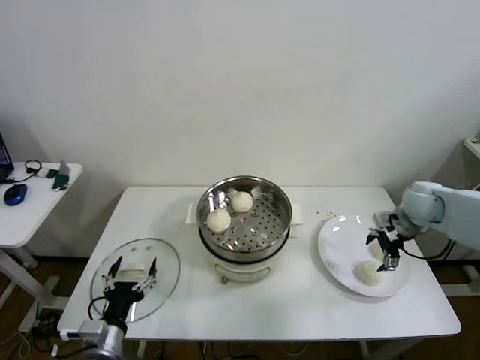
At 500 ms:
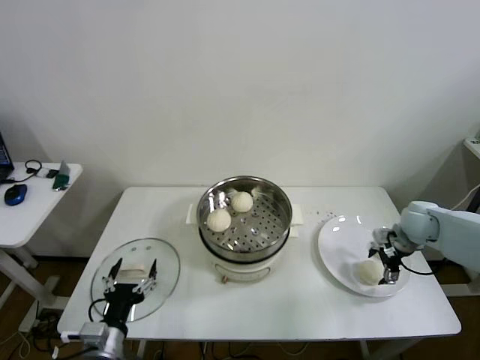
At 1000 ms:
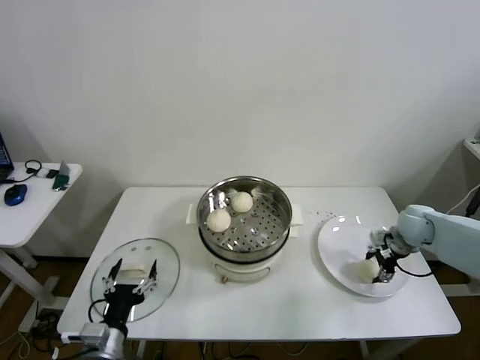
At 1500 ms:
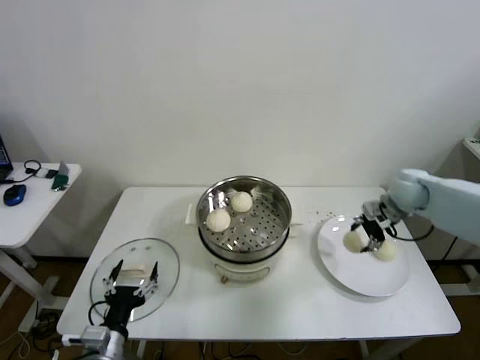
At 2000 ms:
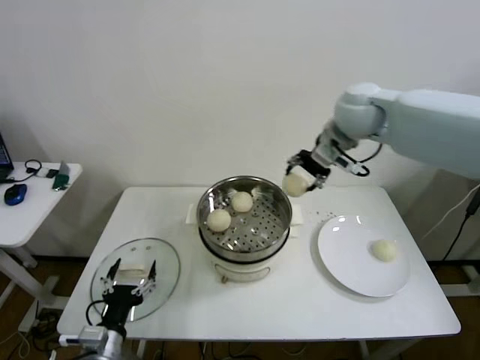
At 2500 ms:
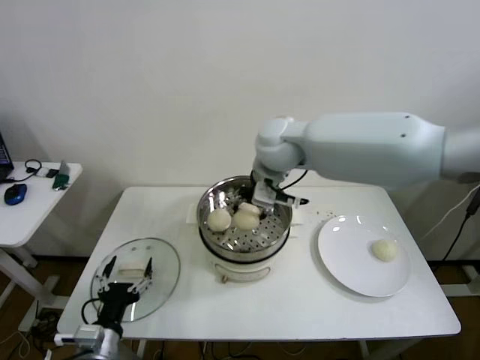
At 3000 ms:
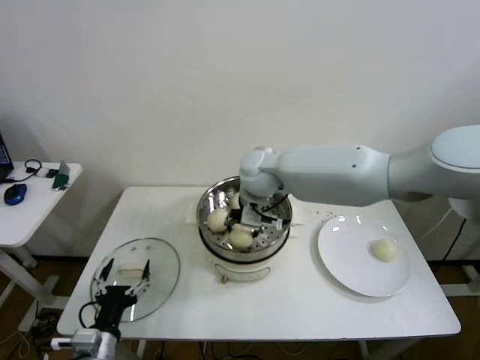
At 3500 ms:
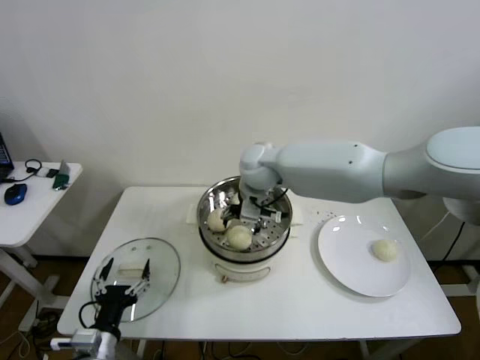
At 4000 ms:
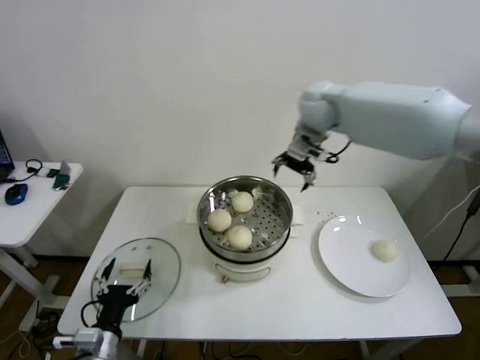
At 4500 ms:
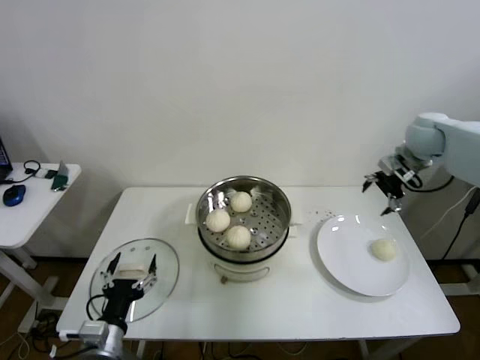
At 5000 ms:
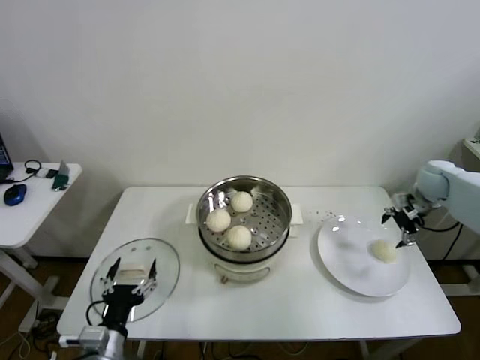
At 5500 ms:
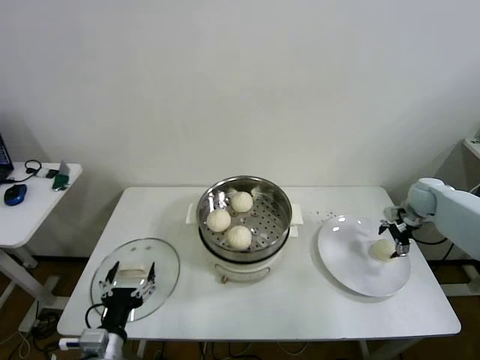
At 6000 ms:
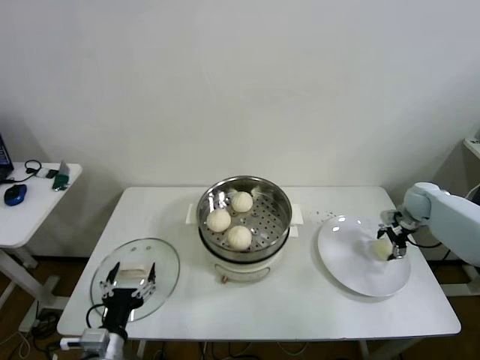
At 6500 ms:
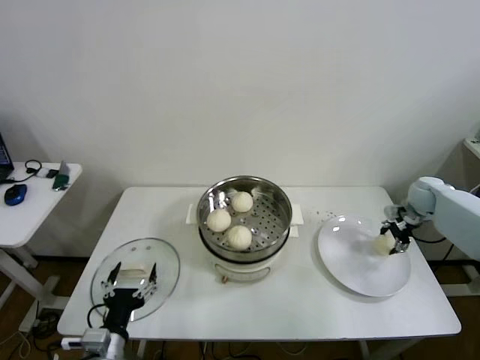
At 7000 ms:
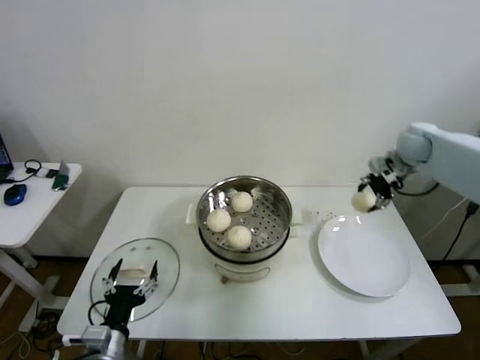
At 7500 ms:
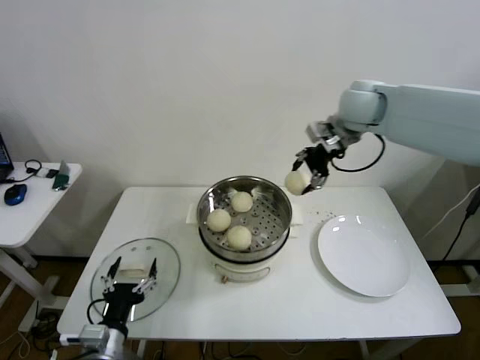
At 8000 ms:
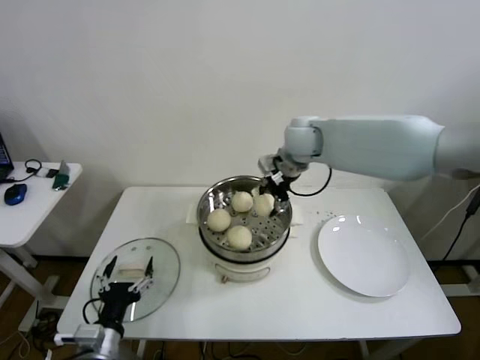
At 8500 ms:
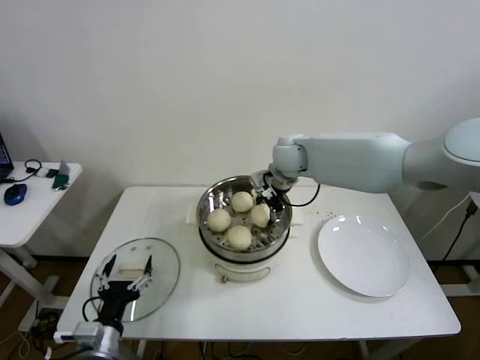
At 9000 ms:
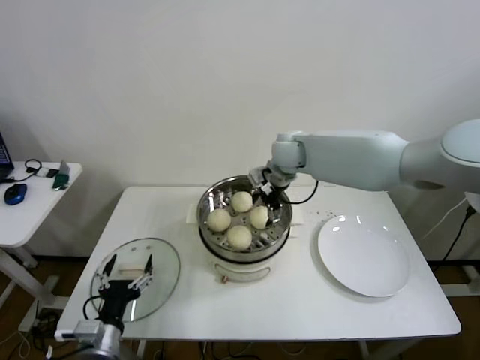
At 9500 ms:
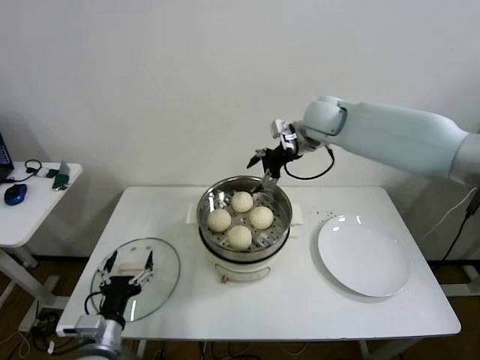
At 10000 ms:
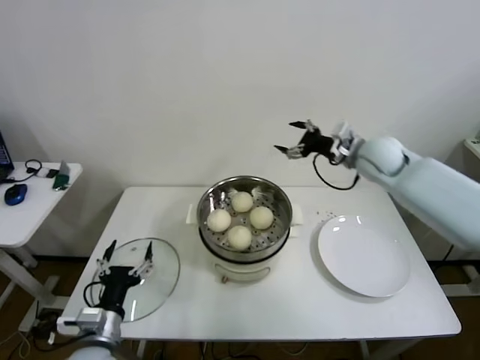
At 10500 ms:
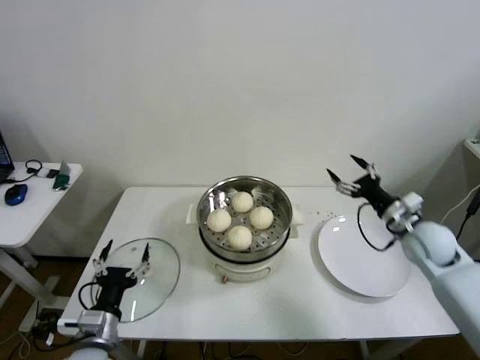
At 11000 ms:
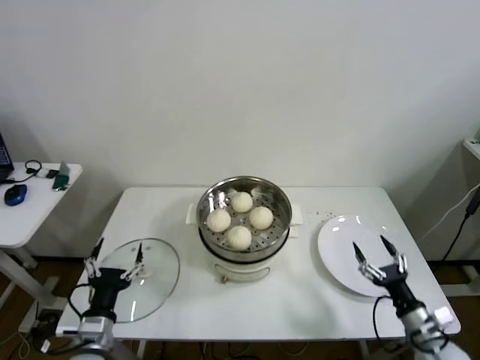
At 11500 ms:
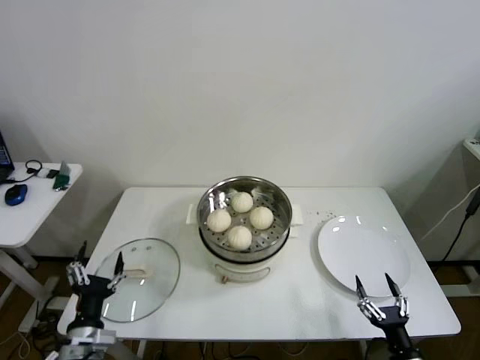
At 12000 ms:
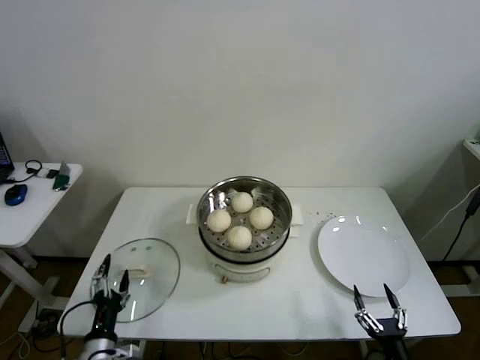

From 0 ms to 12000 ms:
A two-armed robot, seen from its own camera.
Step, from 1000 ms to 3000 ms: Place the baozi on the steamer with right gripper.
Step, from 3500 ms to 6000 ms: Grasp the baozi in the plate with right gripper.
Step, from 6500 ms to 8500 ms: Place the baozi on the steamer with right gripper.
From 0 ms to 2000 ms: The right gripper shifts roughly 30 cm upward and to the left, and closes its fingers.
From 2000 ms to 4000 ms: The right gripper shifts about 5 cm forward, travels to the left and back again, roughly 15 cm each way, and opens its fingers.
From 4000 ms to 6000 ms: The right gripper heads to the right and downward, covering about 40 cm.
From 6000 ms to 8000 ms: The right gripper moves to the left and upward, roughly 40 cm.
From 8000 ms to 10000 ms: The right gripper is displaced to the right by approximately 15 cm, and opens up.
From 10000 ms to 12000 ms: The left gripper shifts about 5 cm downward; the right gripper travels backward and downward by some 50 cm.

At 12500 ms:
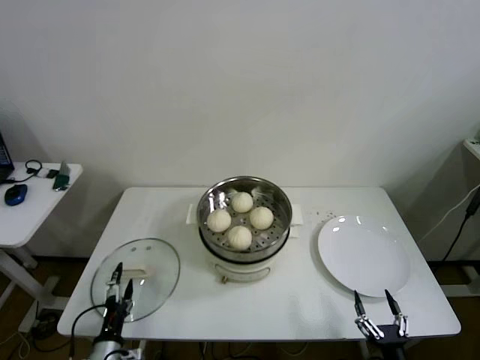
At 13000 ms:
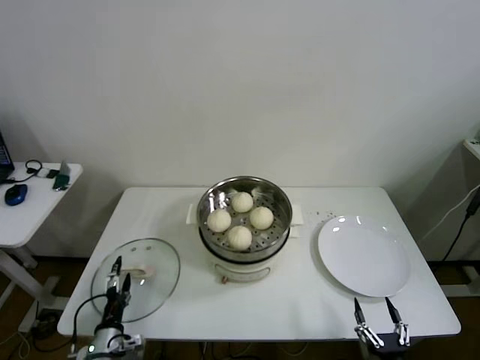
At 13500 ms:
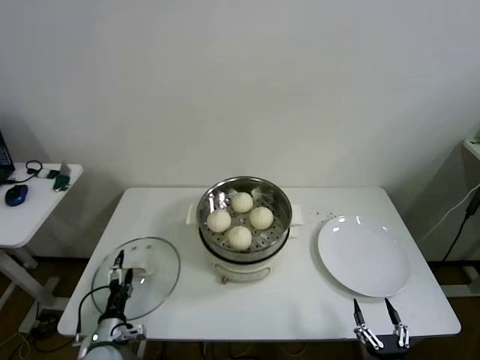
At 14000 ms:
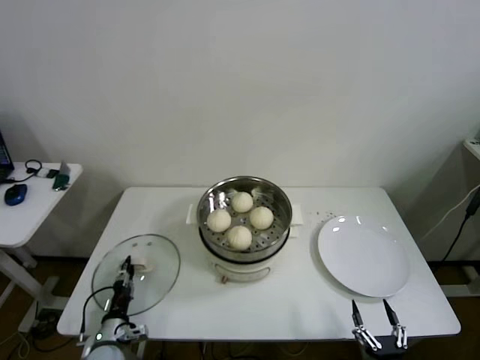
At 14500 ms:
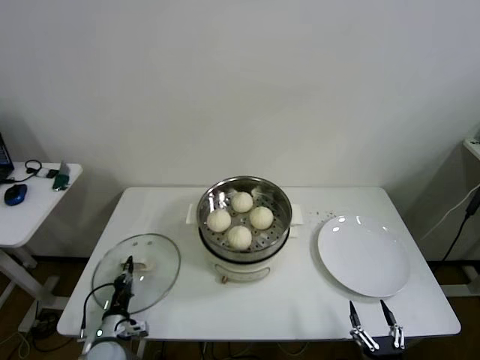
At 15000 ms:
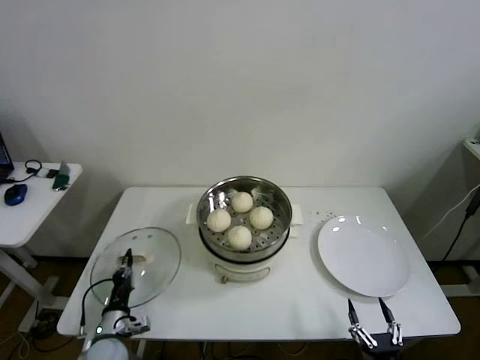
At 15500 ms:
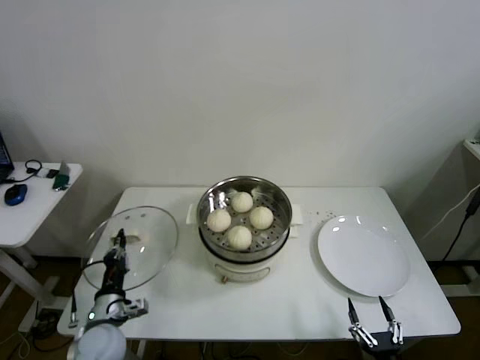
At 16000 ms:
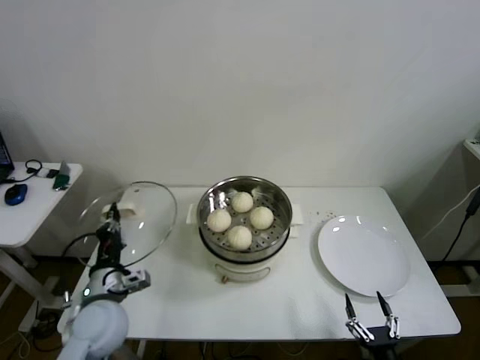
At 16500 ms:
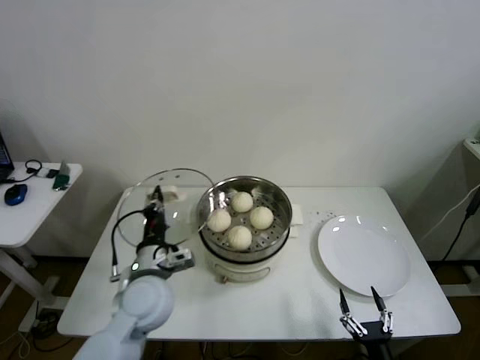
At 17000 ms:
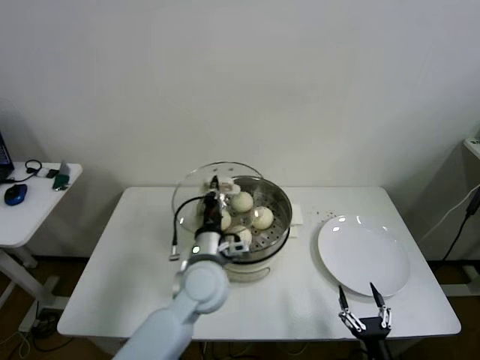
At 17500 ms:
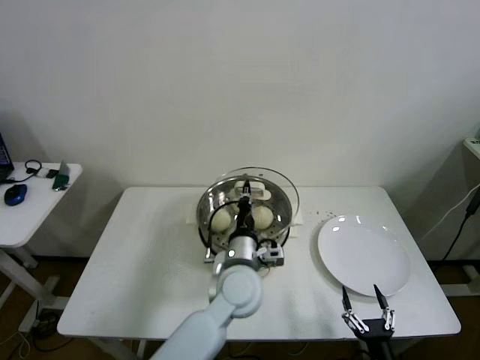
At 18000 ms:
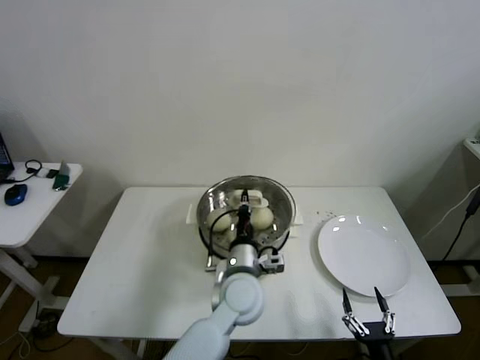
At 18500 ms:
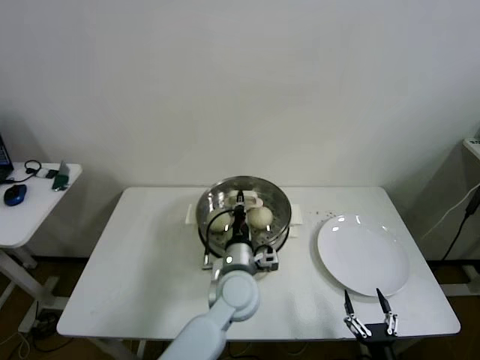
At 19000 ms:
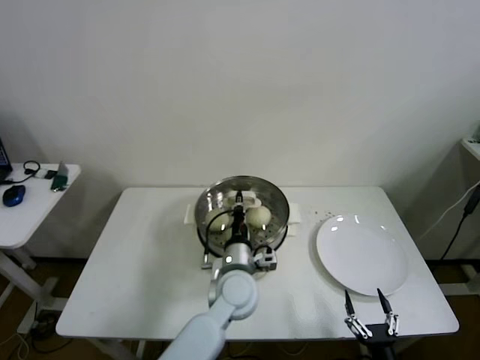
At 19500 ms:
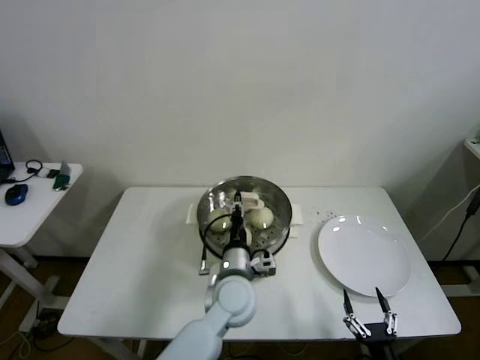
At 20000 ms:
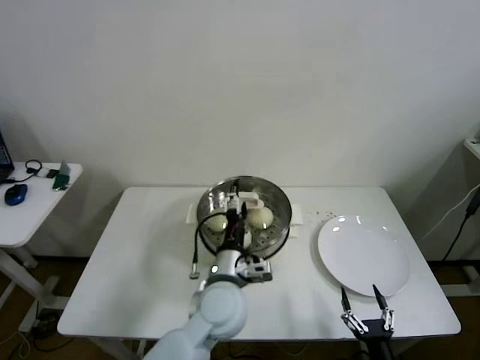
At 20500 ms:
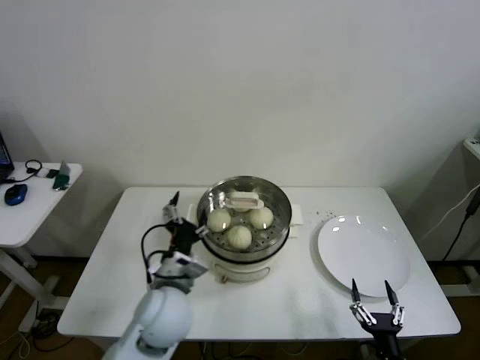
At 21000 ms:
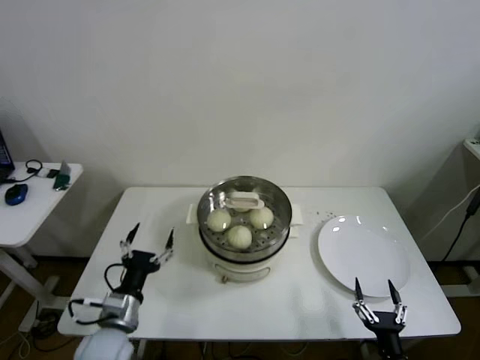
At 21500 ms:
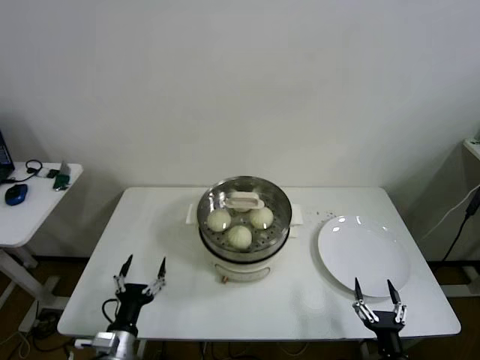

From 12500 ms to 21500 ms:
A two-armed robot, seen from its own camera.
Step, from 14500 ms to 19000 ms: Place the pot lid on the steamer with left gripper.
From 12500 ms to 14500 ms: The left gripper is displaced forward by roughly 5 cm, and closes up.
From 14500 ms to 17000 ms: The left gripper travels to the right and upward by roughly 35 cm.
From 17000 ms to 19500 ms: The left gripper is displaced to the right by about 5 cm.
From 19500 ms to 21500 ms: The left gripper goes approximately 30 cm to the left and backward, and opens its fingers.
